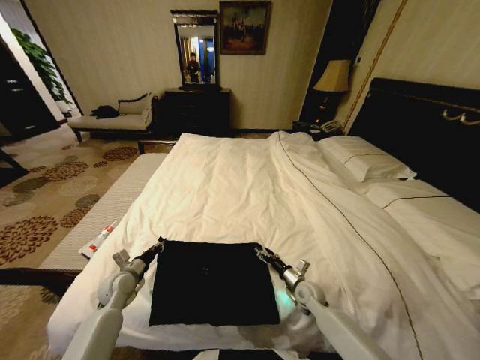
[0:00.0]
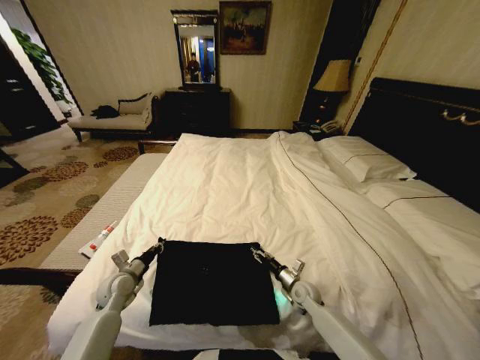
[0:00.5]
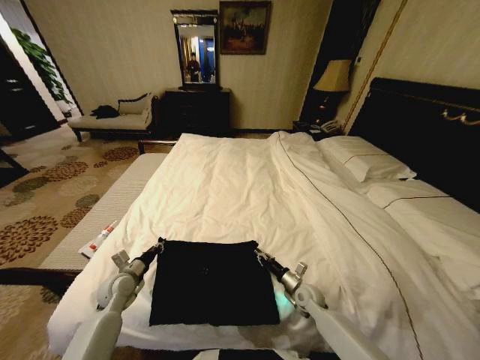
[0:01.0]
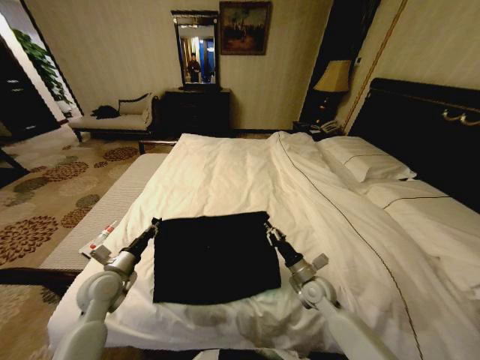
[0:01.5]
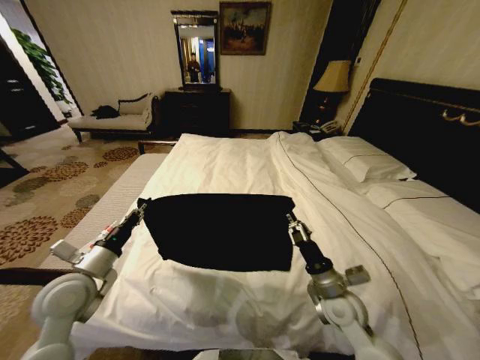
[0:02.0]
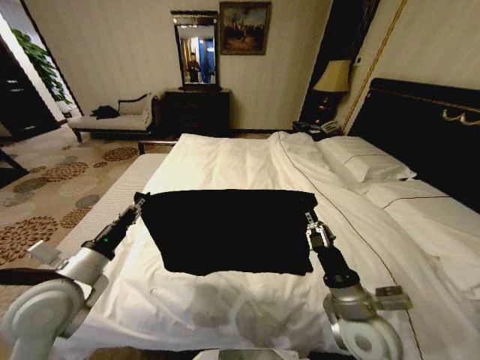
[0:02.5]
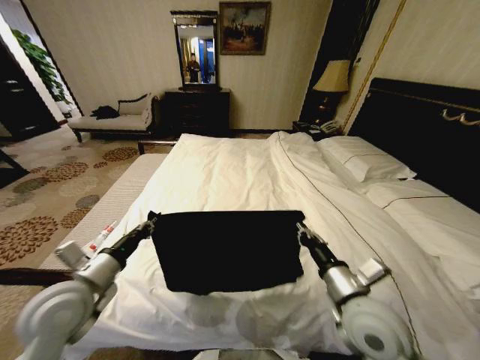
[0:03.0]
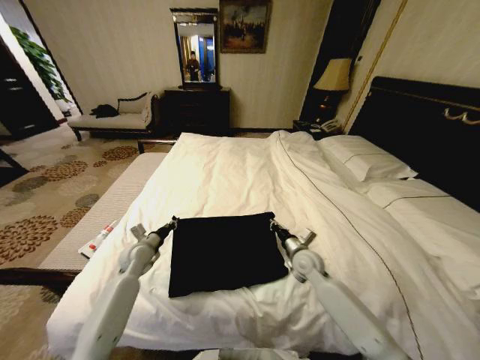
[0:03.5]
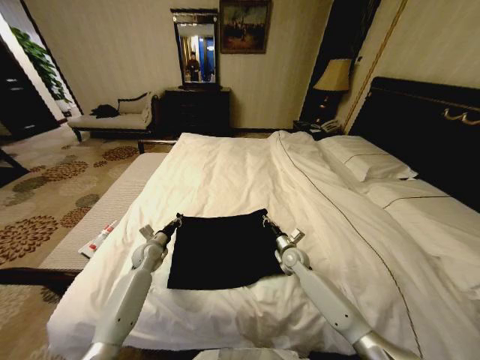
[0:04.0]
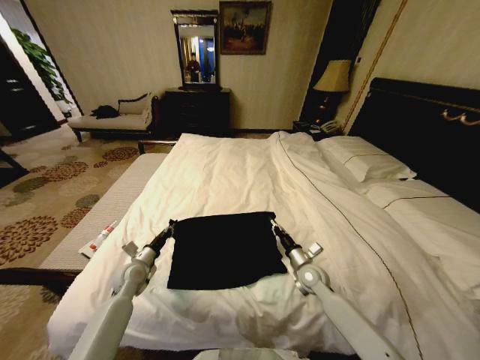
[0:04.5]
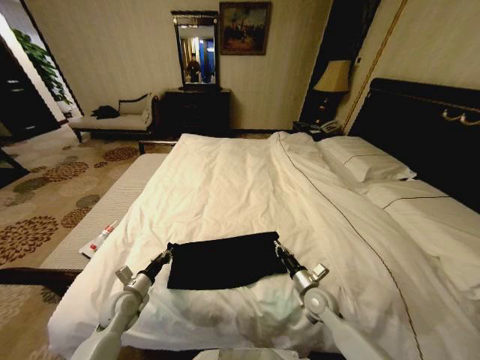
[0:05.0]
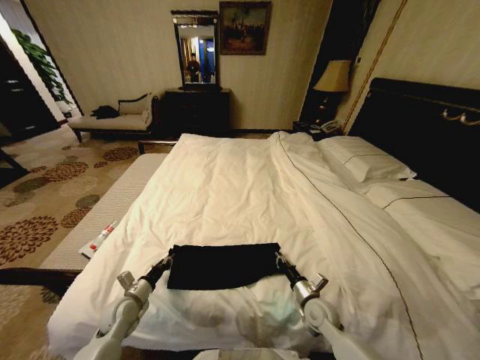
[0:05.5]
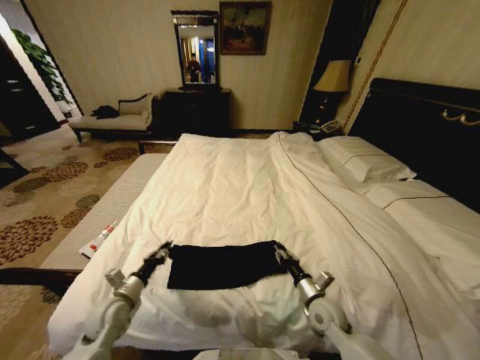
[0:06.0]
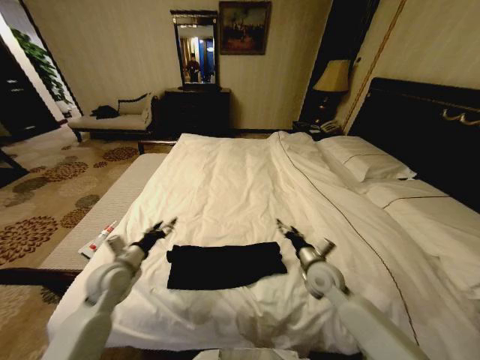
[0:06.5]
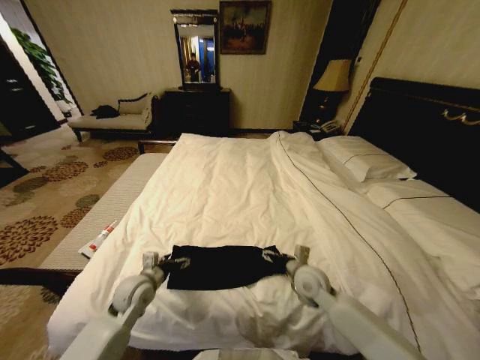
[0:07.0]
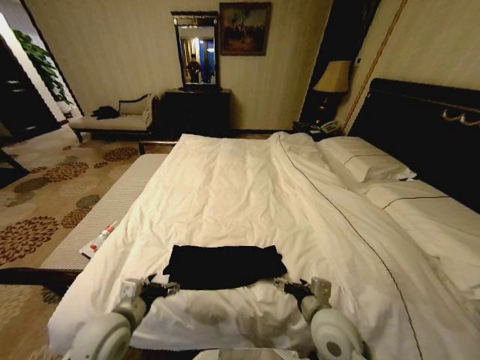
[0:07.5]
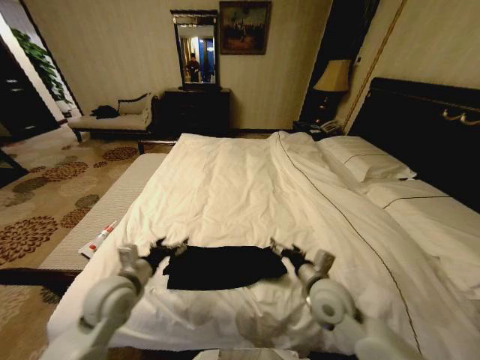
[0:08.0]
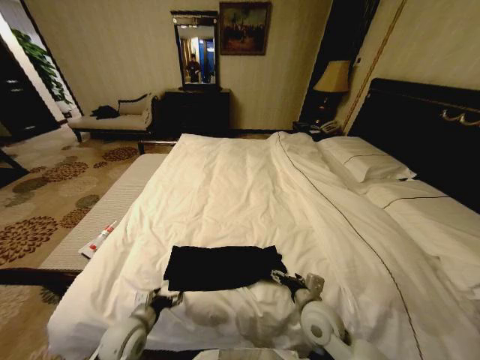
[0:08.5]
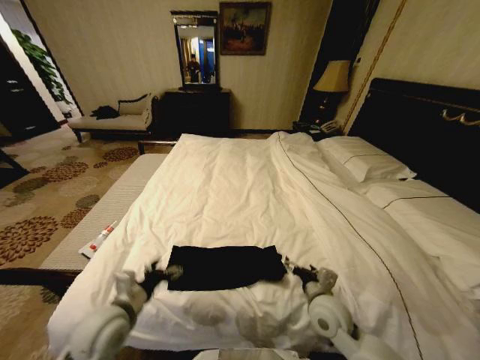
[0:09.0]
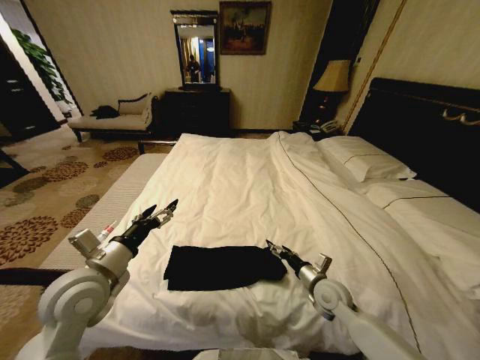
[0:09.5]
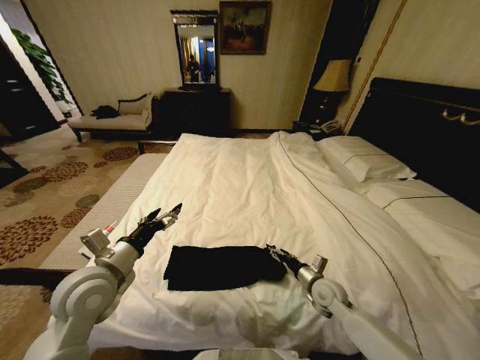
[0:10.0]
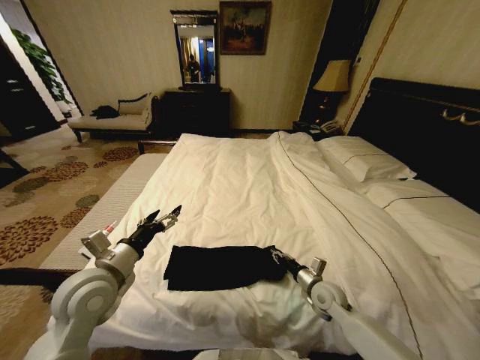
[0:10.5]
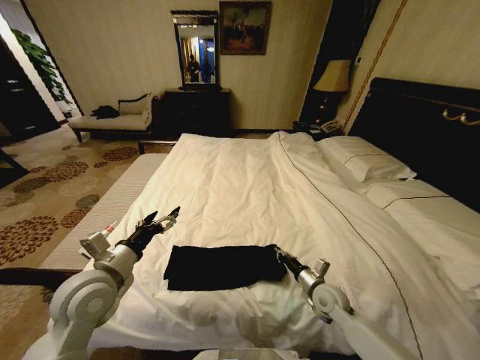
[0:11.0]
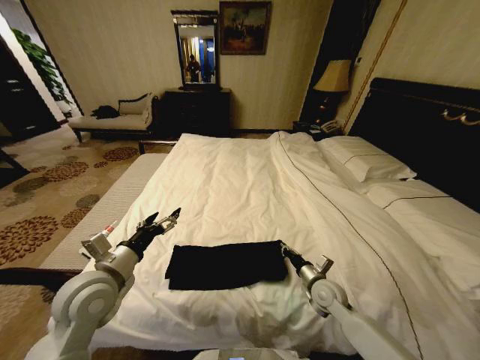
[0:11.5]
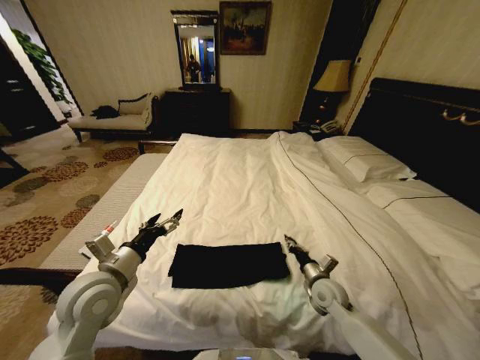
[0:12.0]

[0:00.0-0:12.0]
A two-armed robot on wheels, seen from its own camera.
Task of the whole recording: Fold the clothes on the bed.
0:00.0 to 0:02.0: The grippers both shift upward and backward by roughly 20 cm. The right gripper closes up.
0:02.0 to 0:04.0: The right gripper is displaced forward and downward by roughly 20 cm, while the left gripper shifts some 25 cm downward and forward.
0:04.0 to 0:06.0: The grippers both shift backward by about 20 cm.
0:06.0 to 0:08.0: The left gripper goes forward and backward, about 10 cm each way, reversing 2 times, and opens its fingers. Meanwhile the right gripper goes forward and backward, some 15 cm each way, reversing 2 times, and opens up.
0:08.0 to 0:10.0: The left gripper moves upward, some 5 cm; the right gripper shifts approximately 15 cm downward and to the right.
0:10.0 to 0:12.0: The right gripper closes.

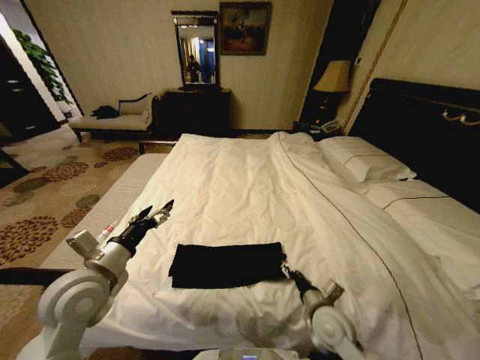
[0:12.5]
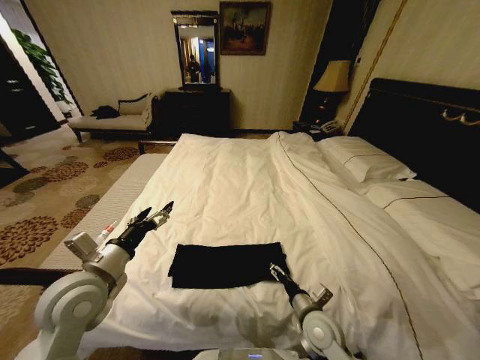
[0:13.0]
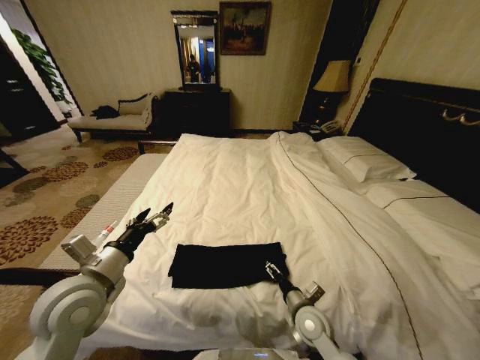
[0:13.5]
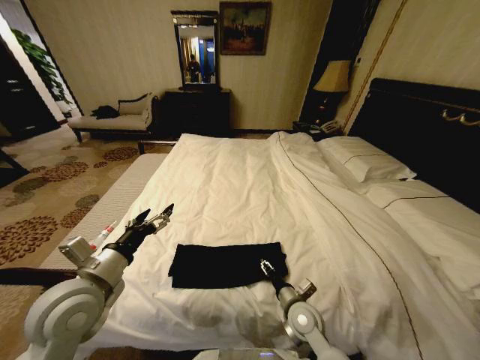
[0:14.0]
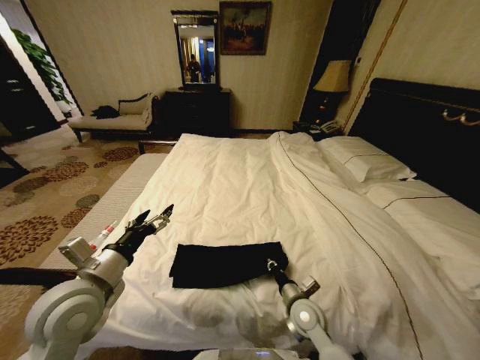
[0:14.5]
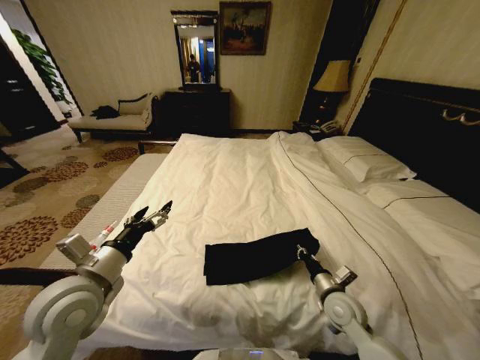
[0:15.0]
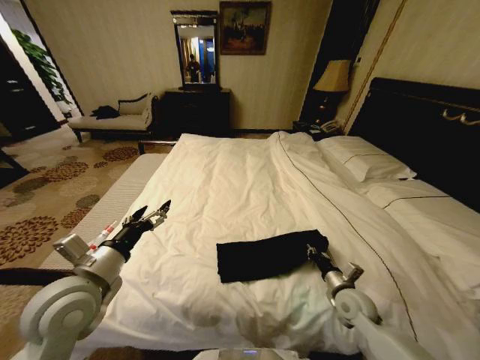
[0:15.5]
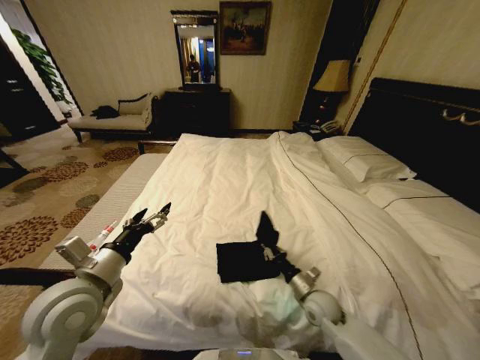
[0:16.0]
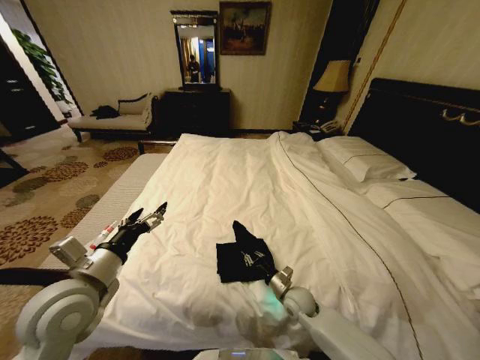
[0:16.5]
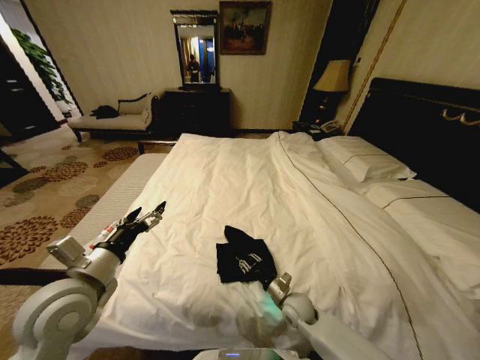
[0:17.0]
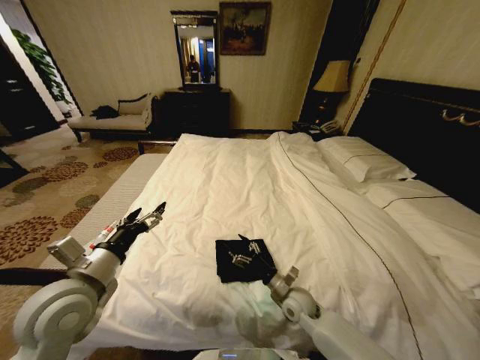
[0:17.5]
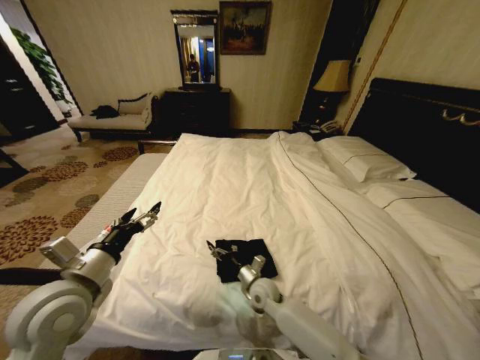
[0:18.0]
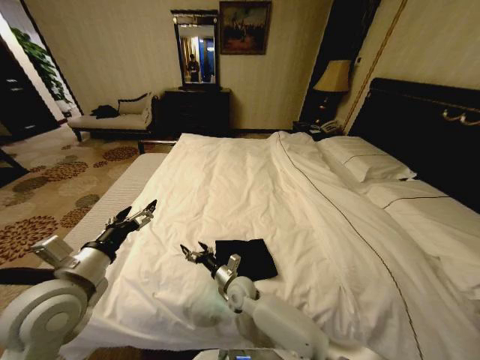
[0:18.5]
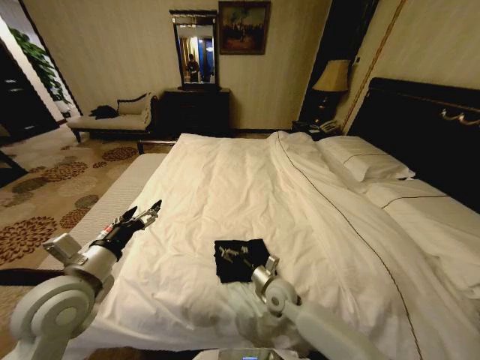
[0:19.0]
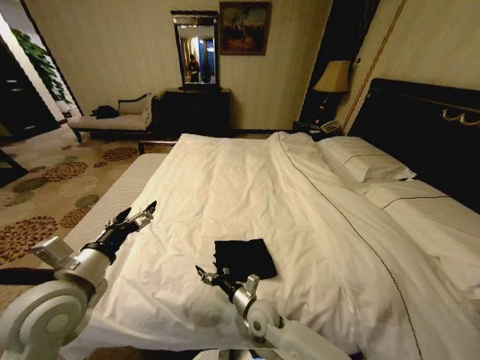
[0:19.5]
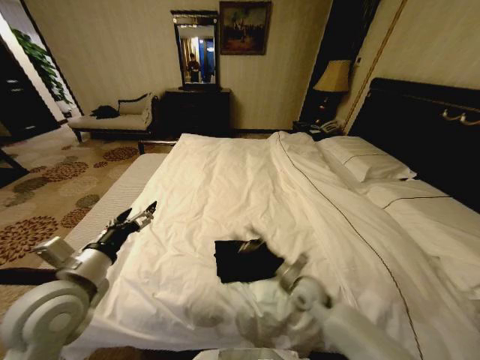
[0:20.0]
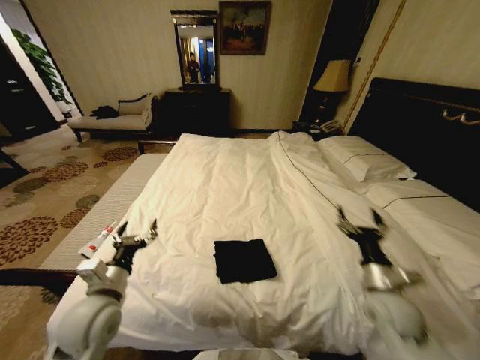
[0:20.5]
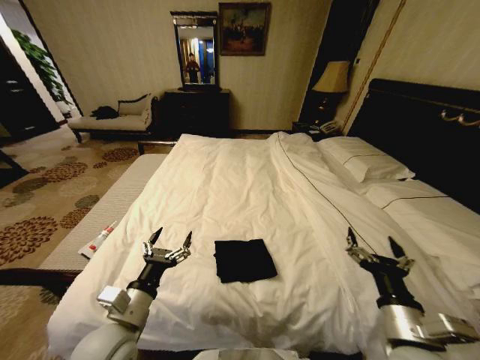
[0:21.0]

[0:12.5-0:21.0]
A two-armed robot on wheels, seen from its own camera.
Task of the whole recording: Fold the clothes on the bed.
0:12.5 to 0:14.5: The right gripper ends up about 5 cm from where it was, and closes its fingers.
0:14.5 to 0:16.5: The right gripper travels downward and forward by roughly 10 cm, and reaches roughly 15 cm to the right, then returns.
0:16.5 to 0:19.0: The right gripper reaches some 20 cm to the left, then returns, and opens.
0:19.0 to 0:21.0: The right gripper moves left and right over some 30 cm, changing direction 2 times. Meanwhile the left gripper shifts roughly 10 cm downward, to the right and backward.
